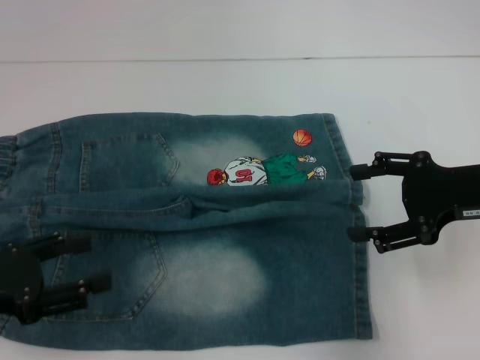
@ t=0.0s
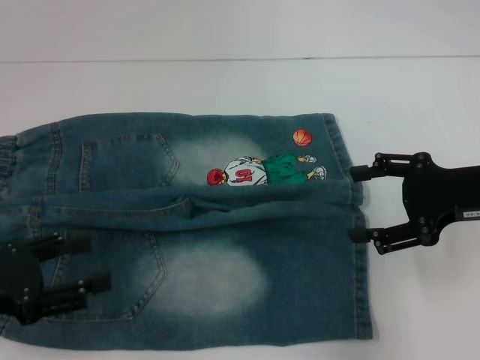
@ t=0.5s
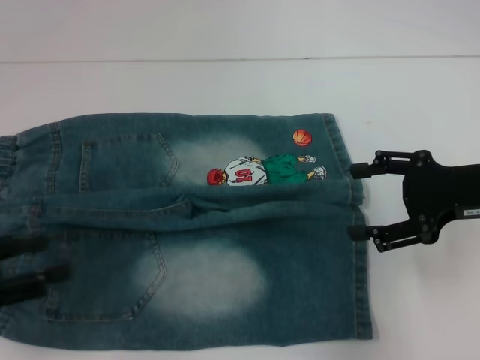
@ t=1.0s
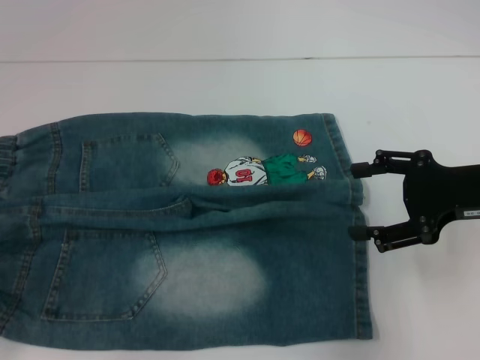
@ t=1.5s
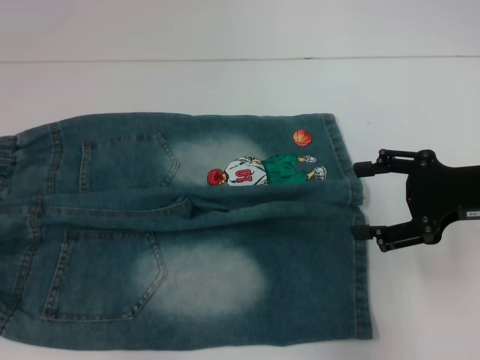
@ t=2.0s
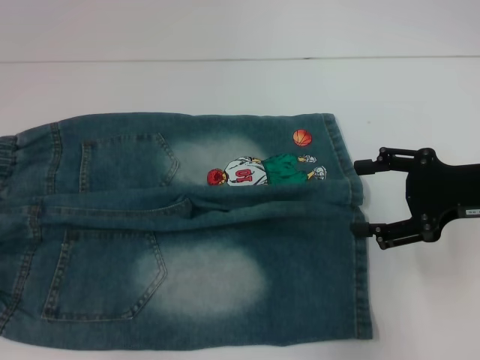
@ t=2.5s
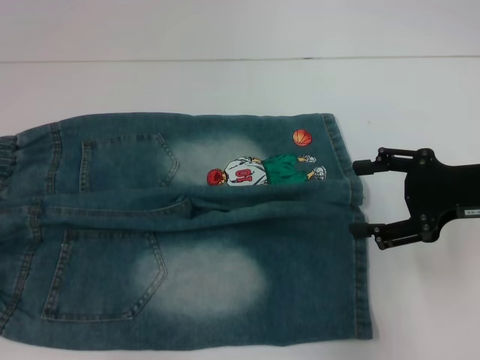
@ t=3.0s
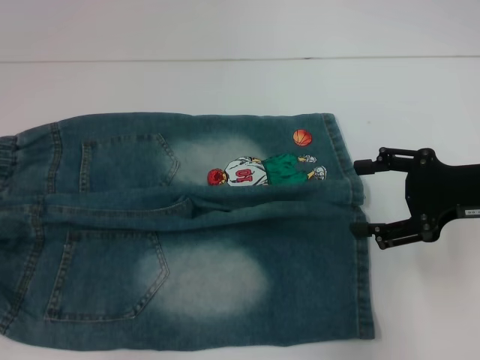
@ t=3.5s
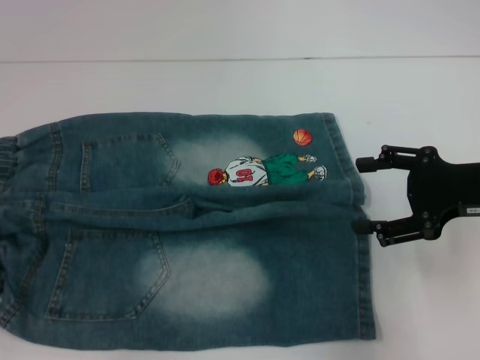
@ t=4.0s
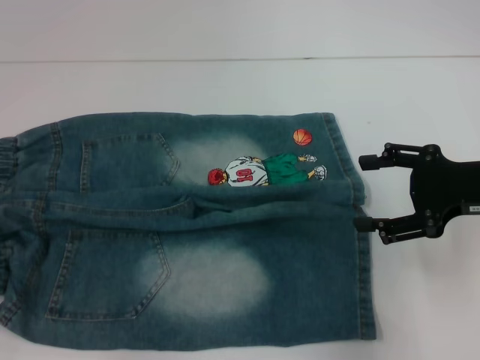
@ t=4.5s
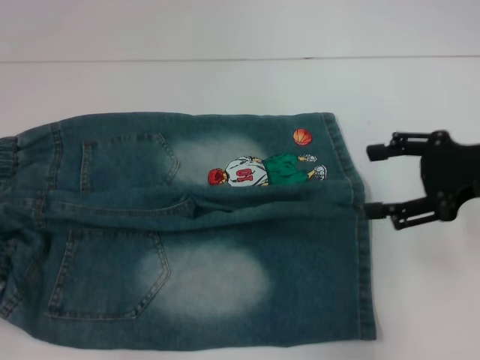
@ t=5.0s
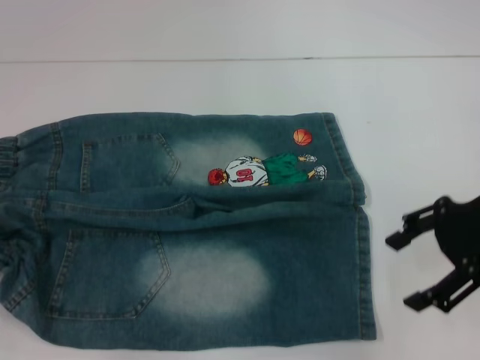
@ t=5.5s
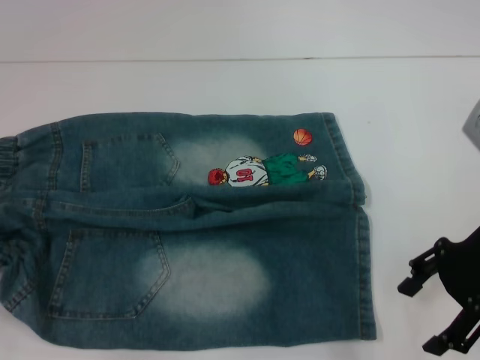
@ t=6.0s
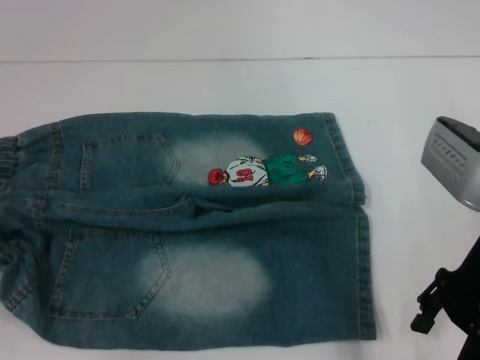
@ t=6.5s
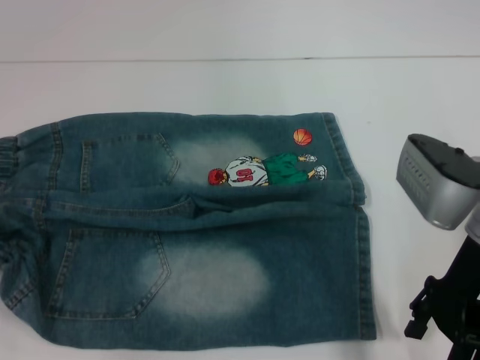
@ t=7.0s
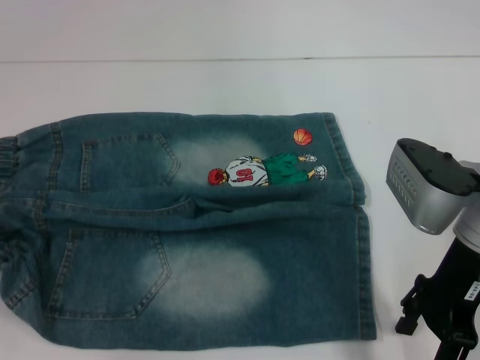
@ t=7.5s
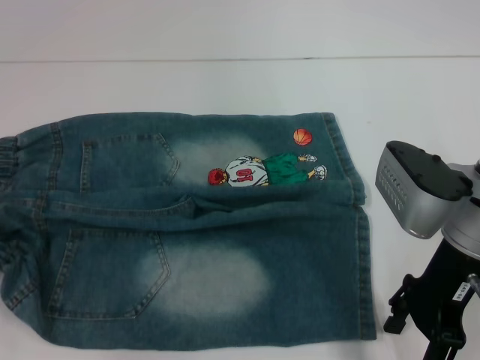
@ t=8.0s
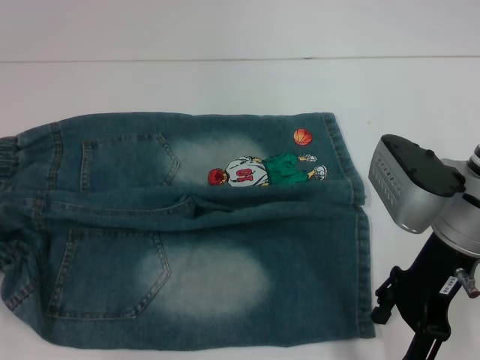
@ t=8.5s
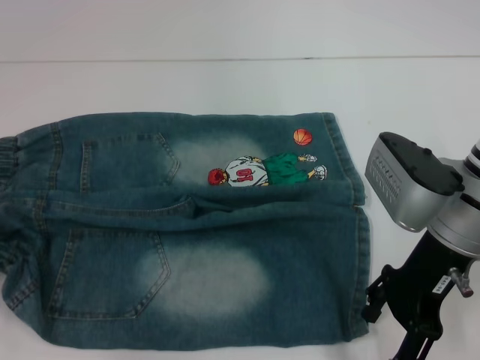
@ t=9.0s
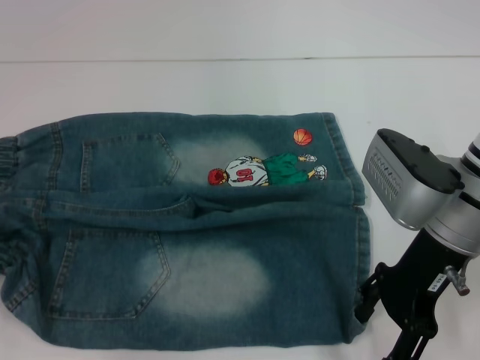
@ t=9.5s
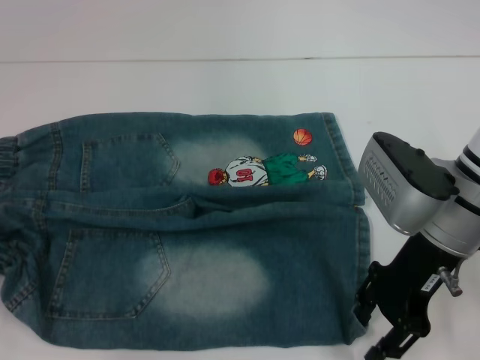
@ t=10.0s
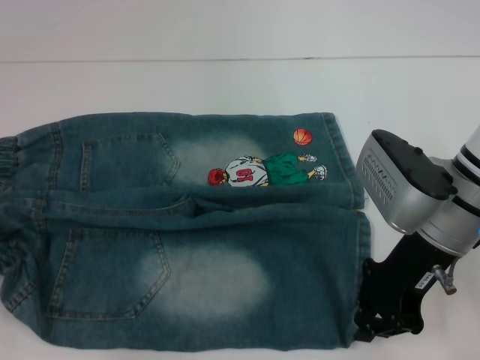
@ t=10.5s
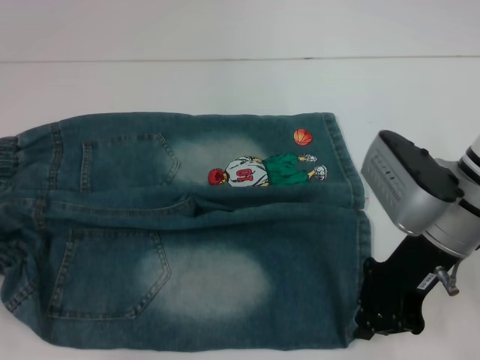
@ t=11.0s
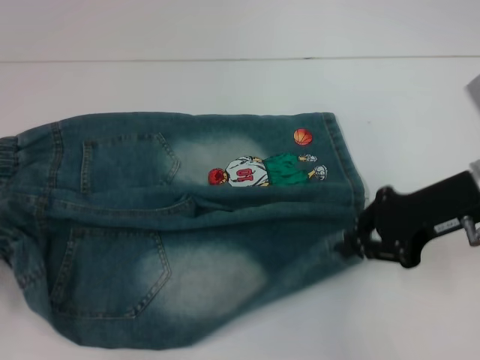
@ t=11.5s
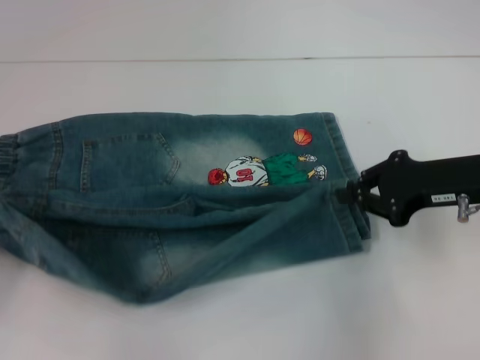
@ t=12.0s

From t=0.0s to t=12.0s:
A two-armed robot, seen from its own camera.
Step, from t=0.0s to t=3.5s: Hold the lower left waistband with your left hand.
Step, from t=4.0s to t=10.5s: Grab the lower right pant leg with your right hand.
From t=0.0s to t=2.0s: The left gripper is displaced to the left by some 10 cm.
From t=2.0s to t=4.0s: There are only small adjustments of the grippers.
From t=4.0s to t=6.0s: The left gripper closes its fingers.
From t=6.0s to t=8.0s: The right gripper is displaced to the left by approximately 5 cm.
From t=8.0s to t=10.0s: The grippers make only small movements.
From t=10.0s to t=12.0s: The right gripper heads to the right, covering some 10 cm, and closes.

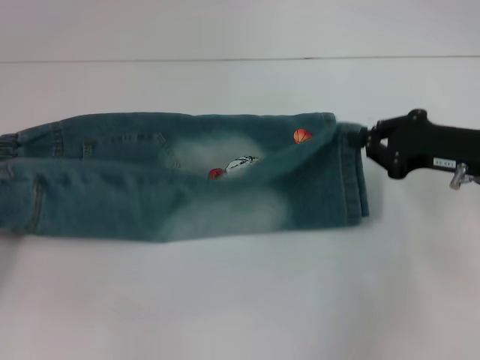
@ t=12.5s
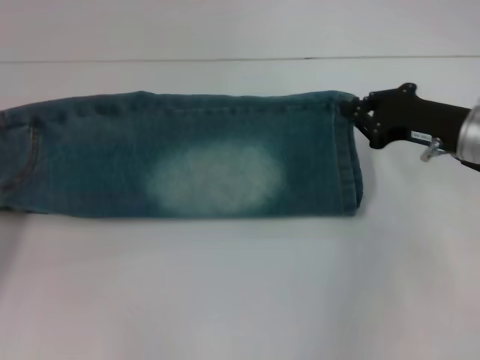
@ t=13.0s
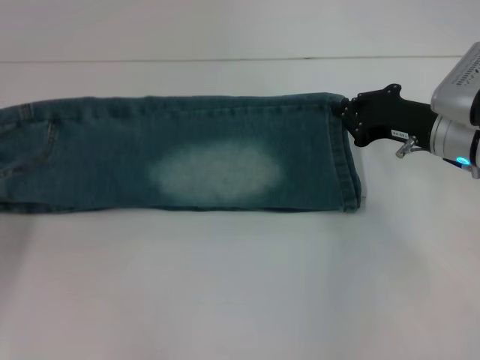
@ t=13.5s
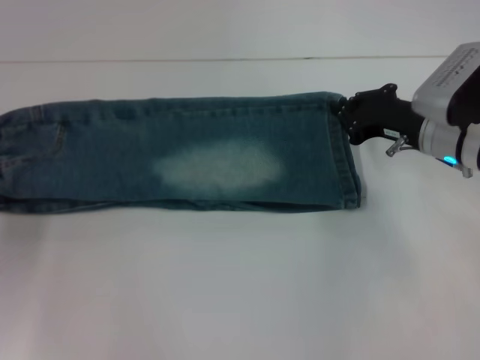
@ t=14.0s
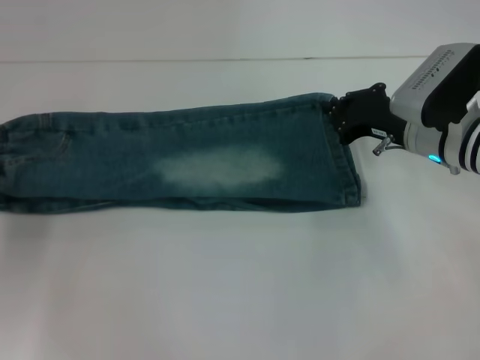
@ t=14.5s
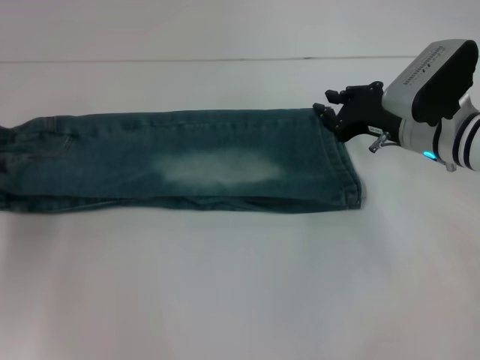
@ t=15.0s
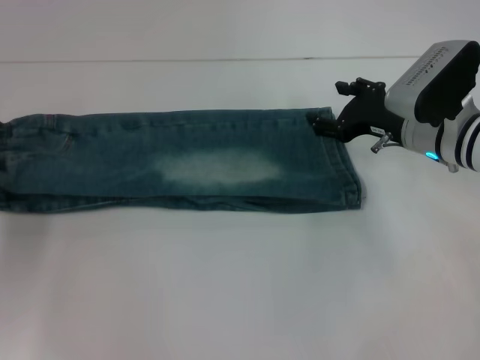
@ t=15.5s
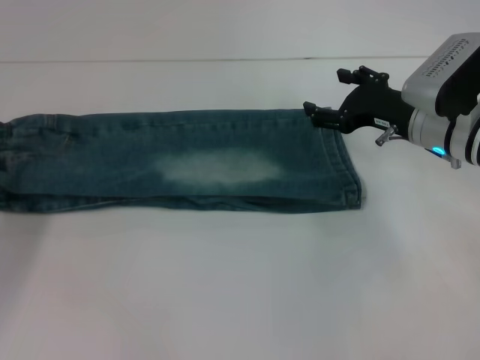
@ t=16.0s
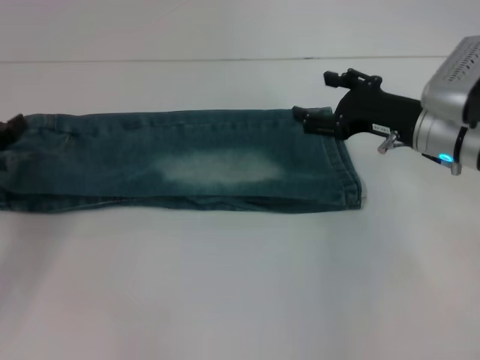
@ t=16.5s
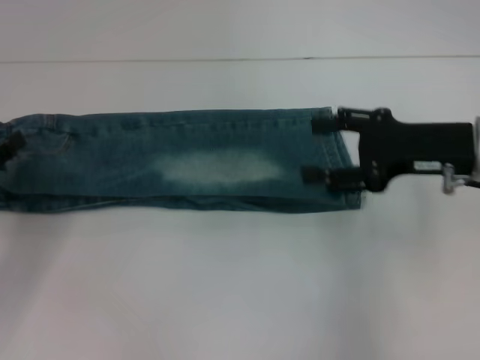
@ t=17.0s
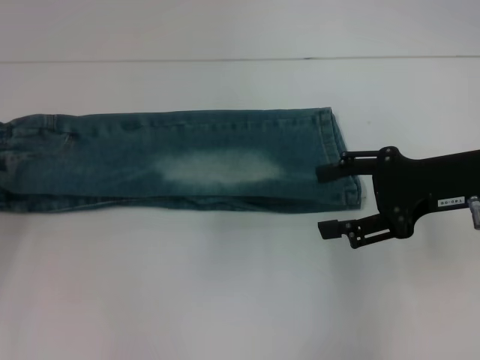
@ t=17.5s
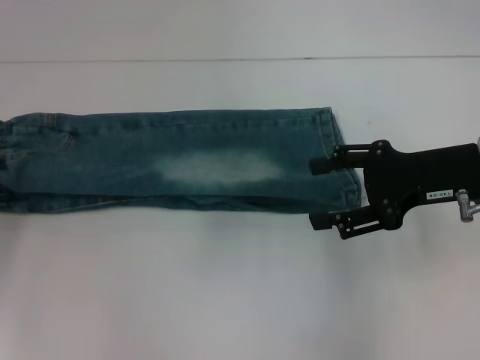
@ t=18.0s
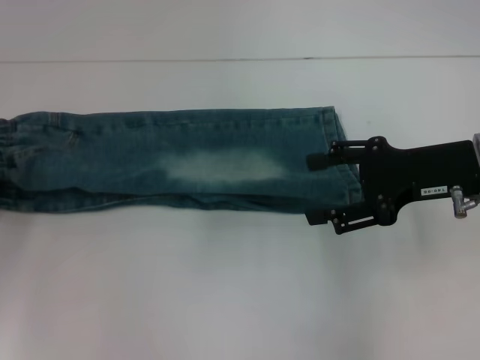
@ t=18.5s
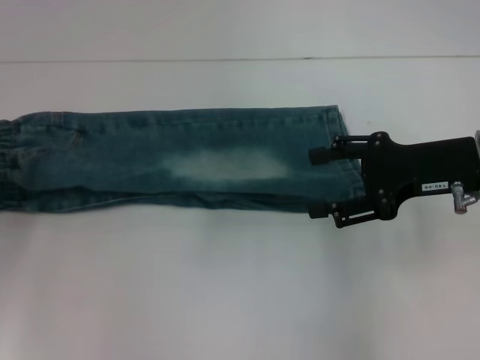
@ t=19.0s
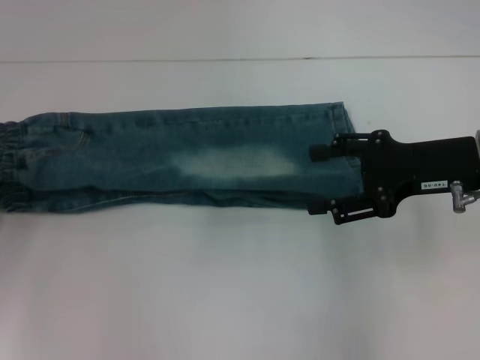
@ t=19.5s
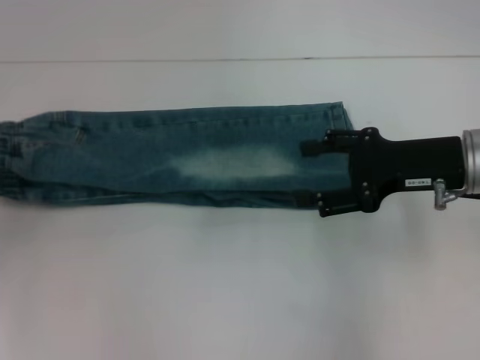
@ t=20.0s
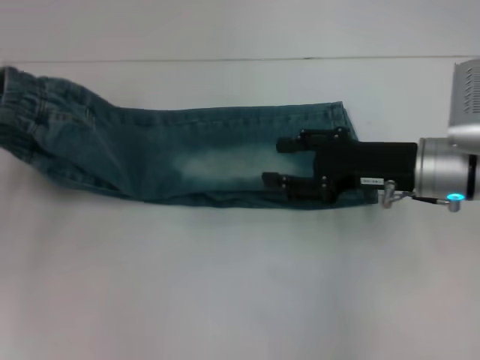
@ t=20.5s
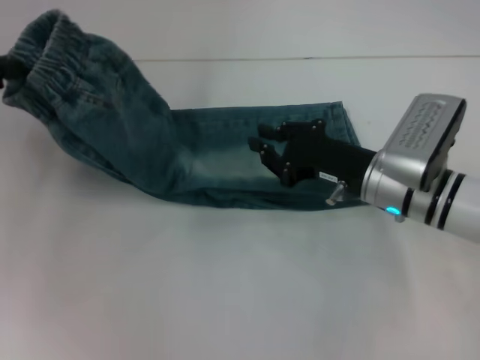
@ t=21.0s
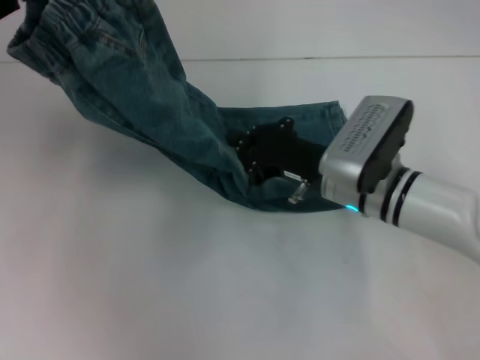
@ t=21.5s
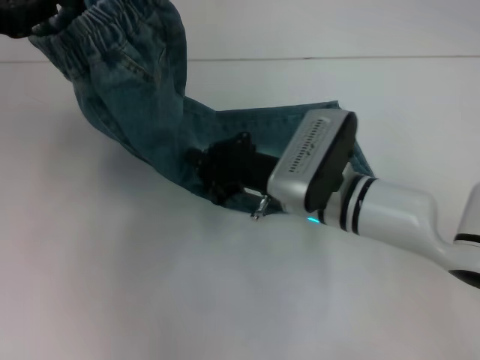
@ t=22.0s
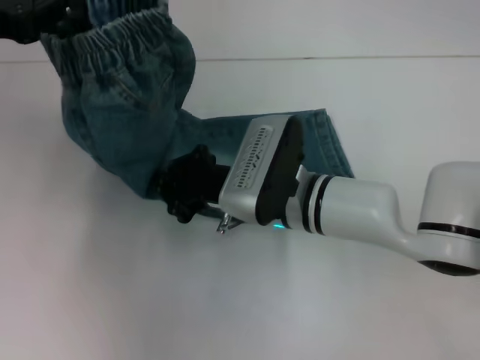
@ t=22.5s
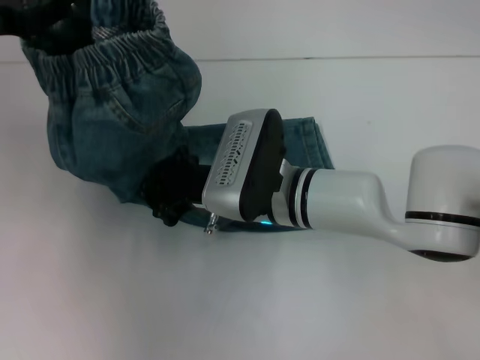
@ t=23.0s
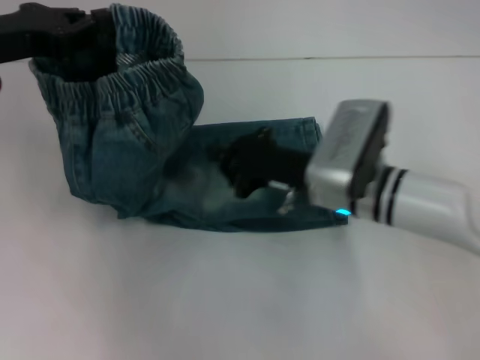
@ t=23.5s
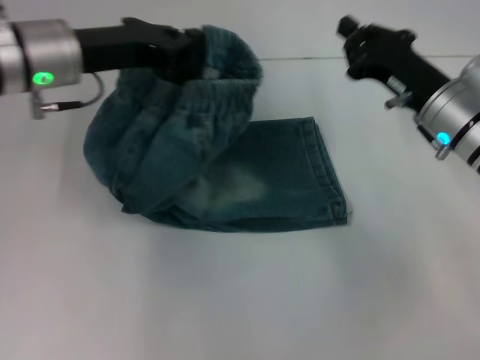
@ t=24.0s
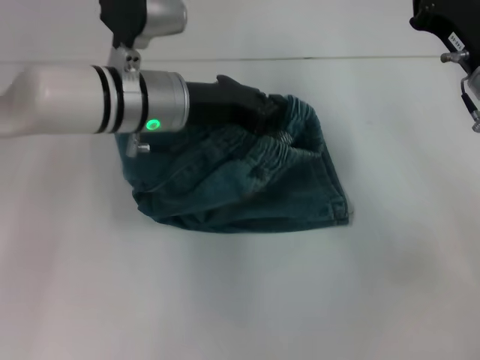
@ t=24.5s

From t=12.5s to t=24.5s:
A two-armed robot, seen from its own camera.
Step, from t=12.5s to t=15.0s: Fold upward with your right hand.
Step, from t=15.5s to t=19.5s: Hold the waistband with your left hand.
Step, from t=20.0s to t=22.5s: Press the middle of the pants with your right hand.
From t=12.5s to t=14.5s: The left gripper moves forward, roughly 10 cm; the right gripper heads to the left and forward, covering roughly 10 cm.
From t=14.5s to t=16.5s: The right gripper opens its fingers, while the left gripper moves backward, about 5 cm, and opens.
From t=16.5s to t=18.5s: The right gripper shifts approximately 5 cm backward and upward.
From t=18.5s to t=20.5s: The left gripper is displaced upward by roughly 5 cm, and closes. Meanwhile the right gripper shifts by some 5 cm.
From t=20.5s to t=22.5s: The left gripper moves upward, to the right and forward, about 10 cm; the right gripper moves to the left, about 15 cm, and closes.
From t=22.5s to t=24.5s: The left gripper is displaced to the right and downward by approximately 20 cm. The right gripper is displaced to the right by about 20 cm.

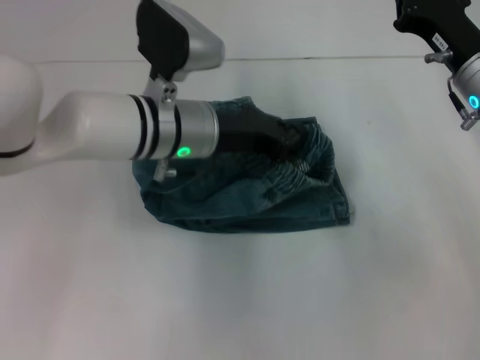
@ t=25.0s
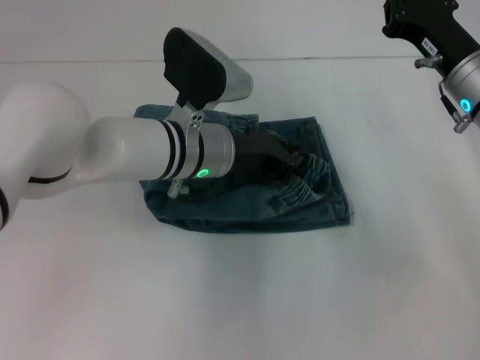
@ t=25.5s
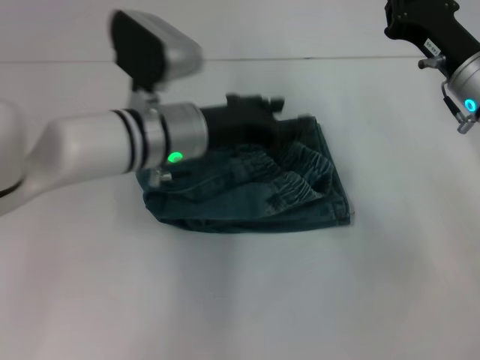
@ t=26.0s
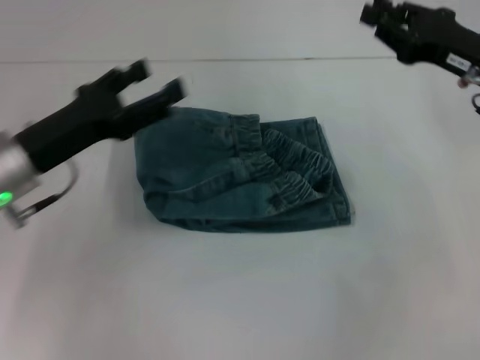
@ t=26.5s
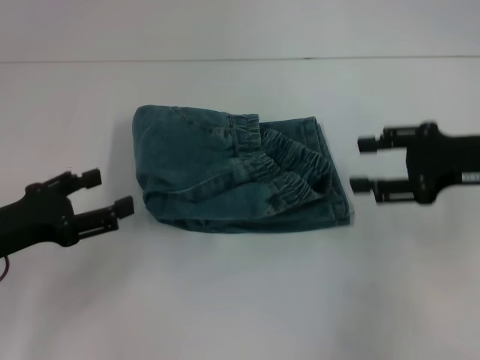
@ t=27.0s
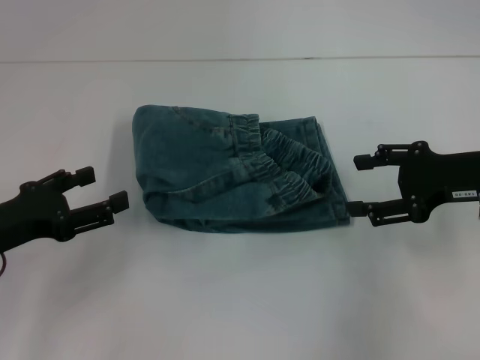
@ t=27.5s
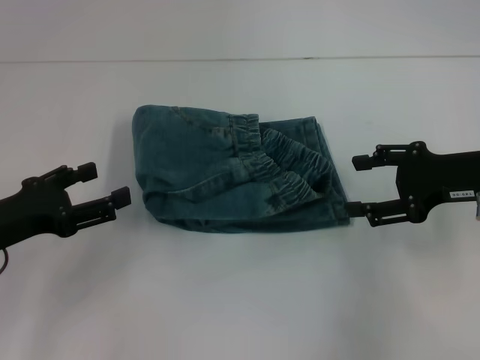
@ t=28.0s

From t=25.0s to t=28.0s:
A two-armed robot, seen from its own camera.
From t=25.0s to t=26.5s: The left gripper shifts approximately 15 cm to the left and backward, and opens up.
From t=26.5s to t=28.0s: The right gripper ends up some 5 cm from where it was, and opens its fingers. Meanwhile the left gripper shifts approximately 10 cm to the left and backward.
